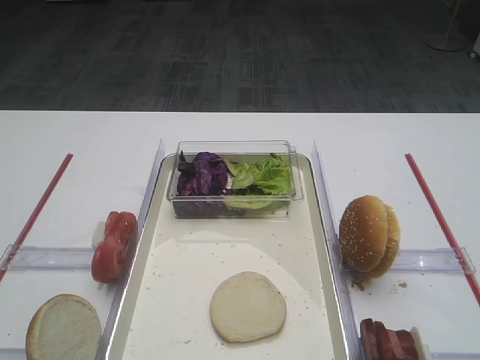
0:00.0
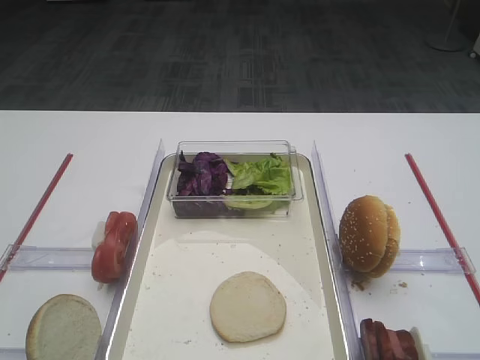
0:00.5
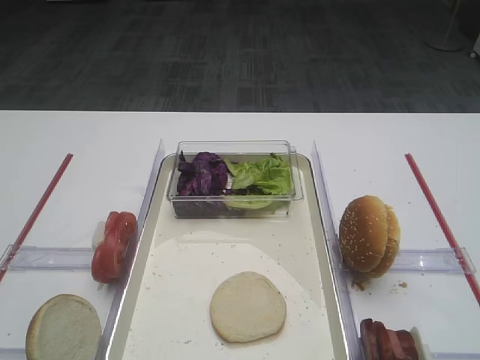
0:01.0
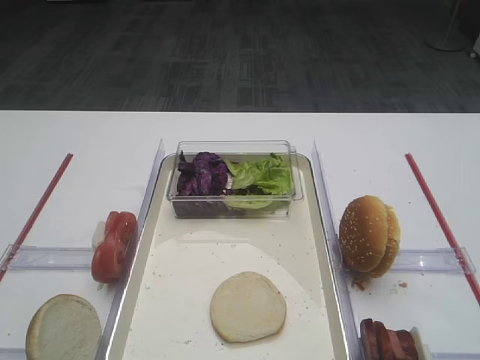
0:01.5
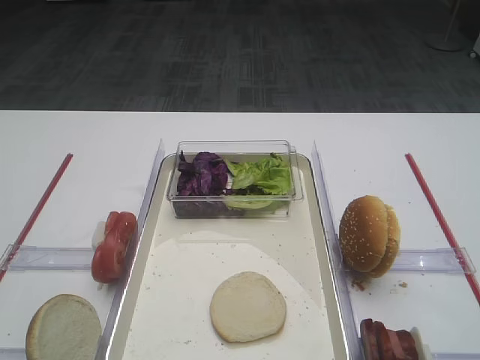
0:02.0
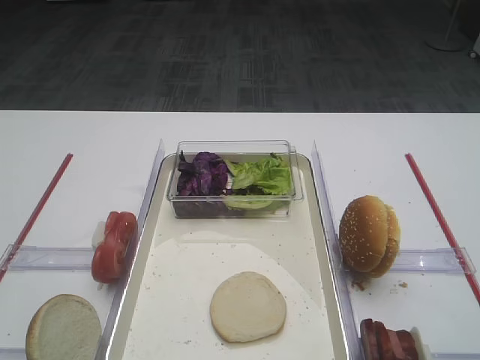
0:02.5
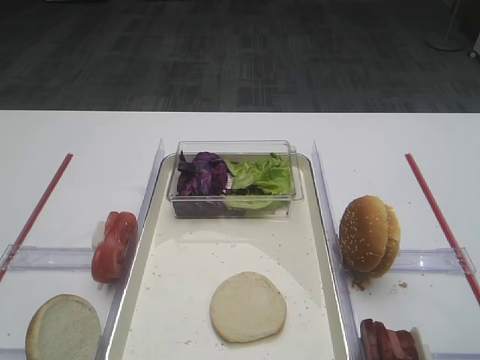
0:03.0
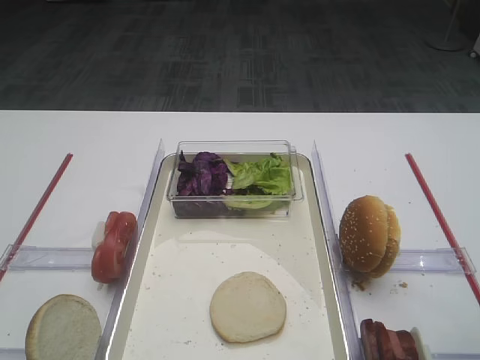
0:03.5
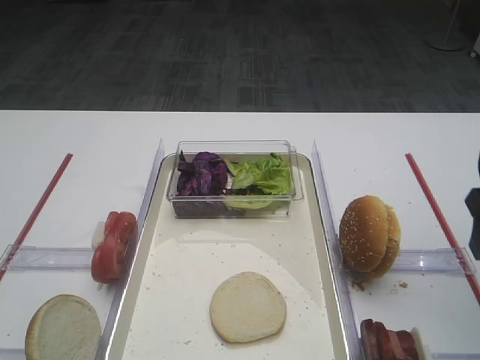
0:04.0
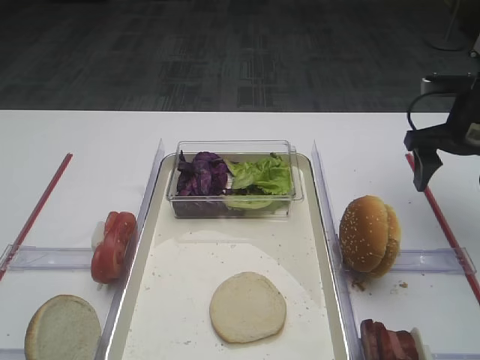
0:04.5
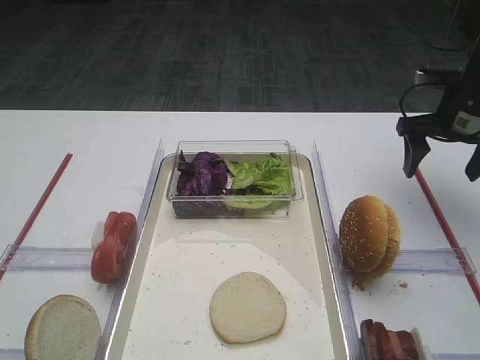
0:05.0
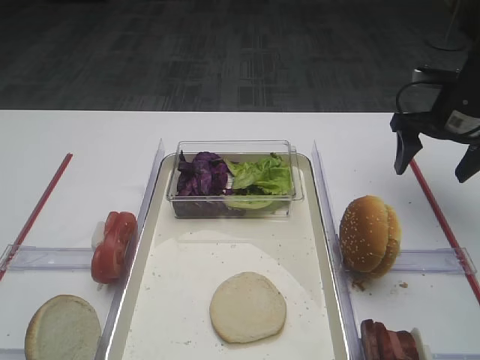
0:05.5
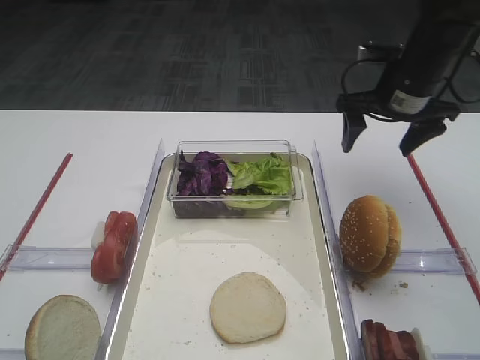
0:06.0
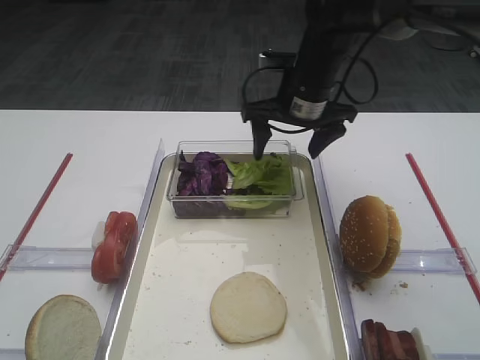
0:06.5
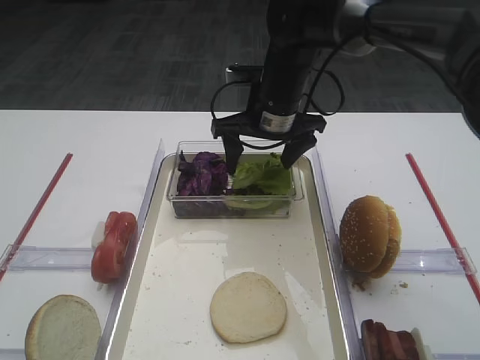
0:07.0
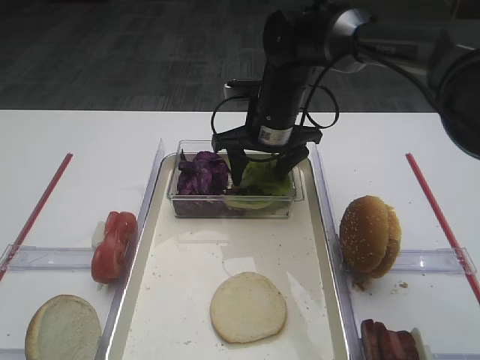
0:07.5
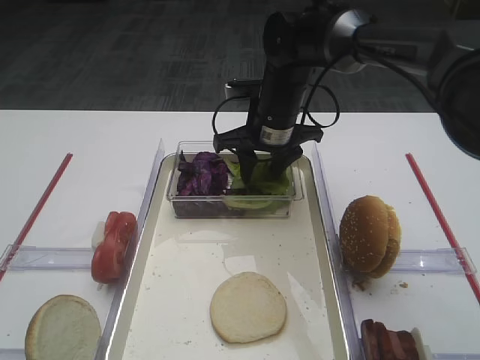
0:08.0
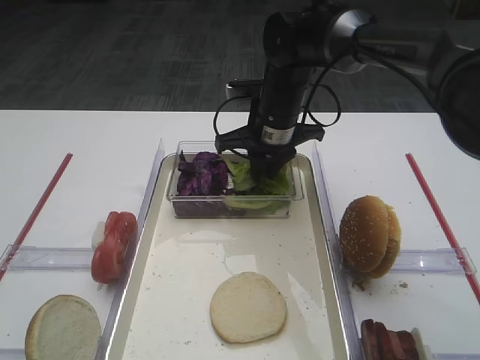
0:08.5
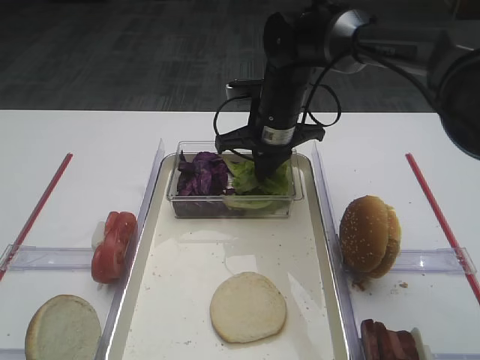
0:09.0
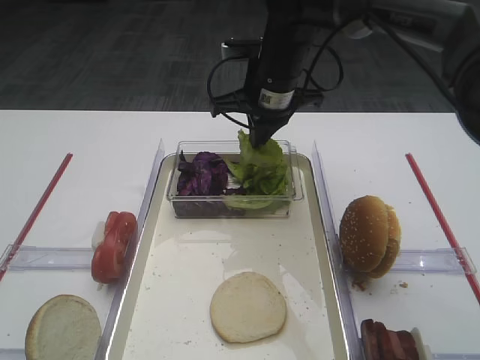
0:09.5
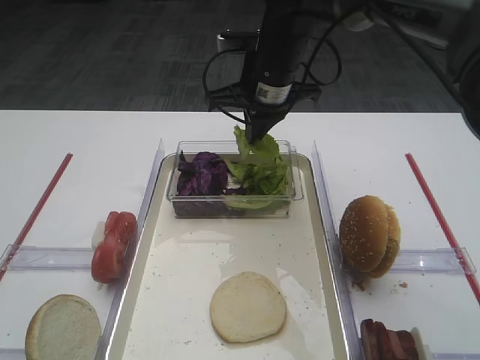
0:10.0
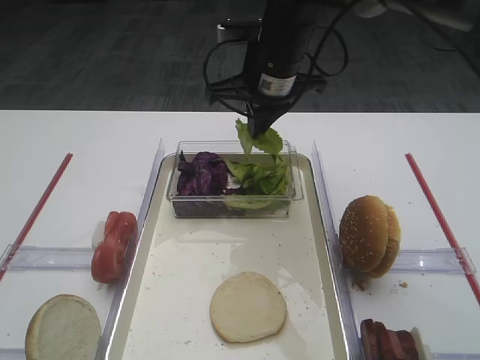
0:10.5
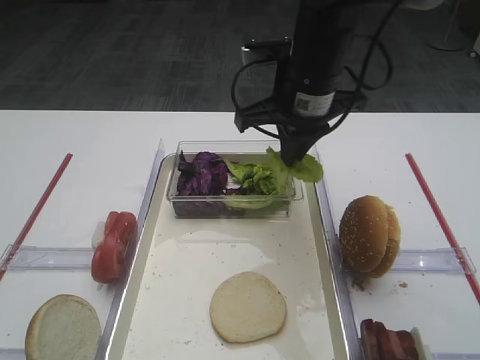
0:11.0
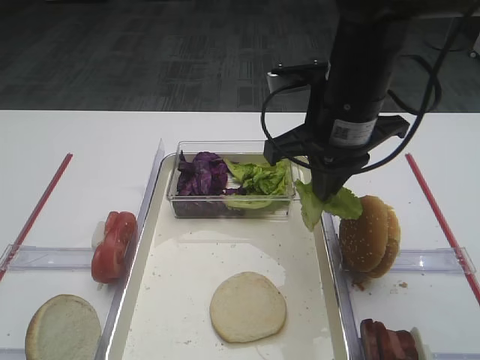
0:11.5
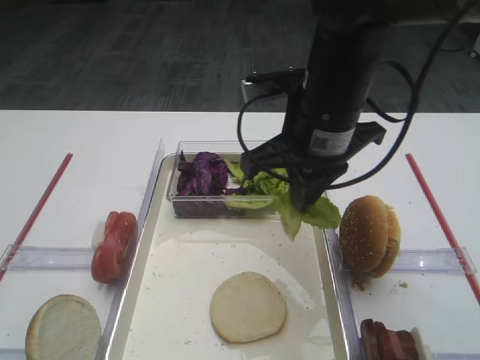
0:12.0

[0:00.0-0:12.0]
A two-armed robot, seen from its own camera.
Step, 0:00.0 to 0:09.5: Pick up the lettuce leaf with the right gripper.
0:02.0 to 0:04.0: The right gripper moves forward, some 20 cm.
0:04.0 to 0:06.0: The right gripper shifts some 20 cm forward.
0:06.0 to 0:08.0: The right gripper shifts some 20 cm to the left, and closes its fingers.
0:08.0 to 0:10.0: The right gripper heads upward, covering about 5 cm, and closes.
0:10.0 to 0:12.0: The right gripper is displaced backward by some 15 cm.

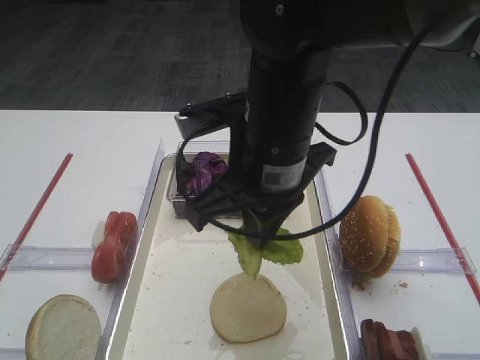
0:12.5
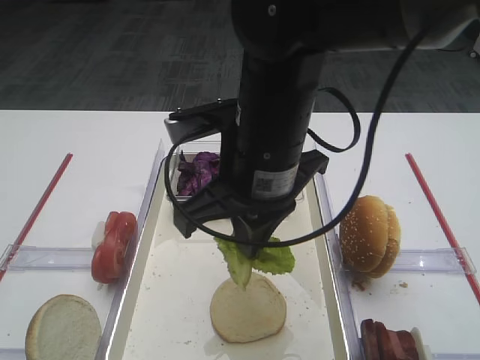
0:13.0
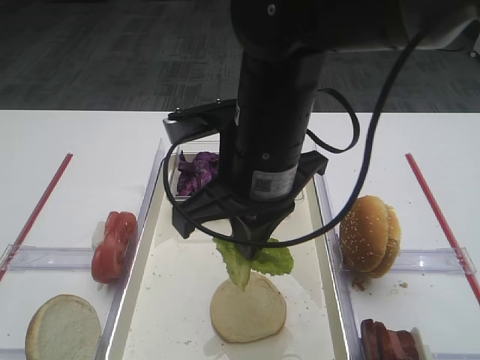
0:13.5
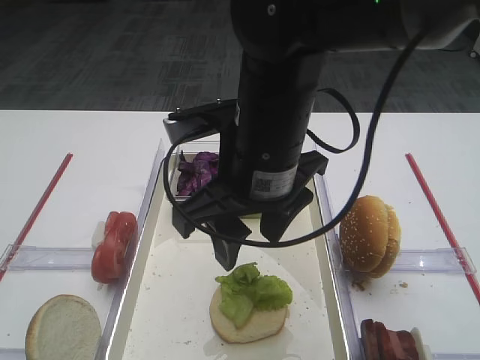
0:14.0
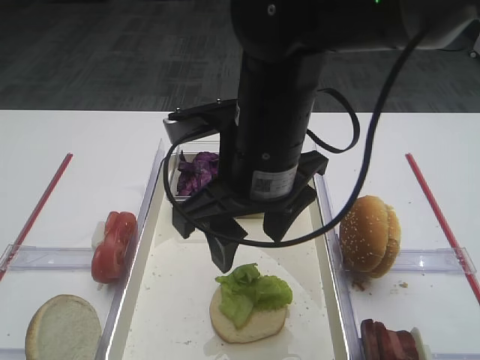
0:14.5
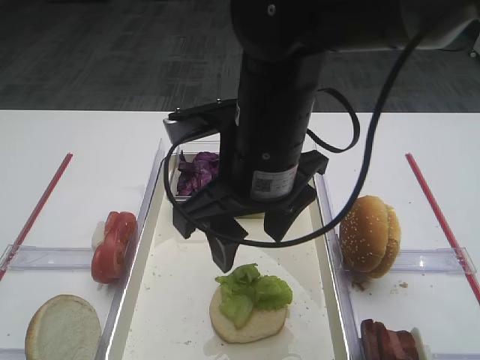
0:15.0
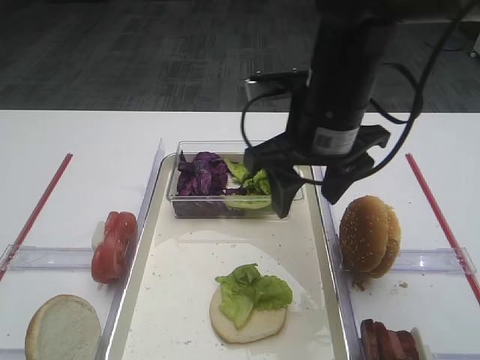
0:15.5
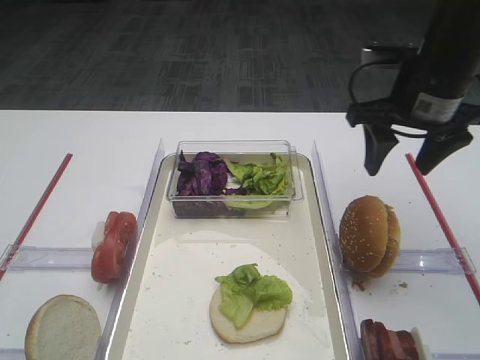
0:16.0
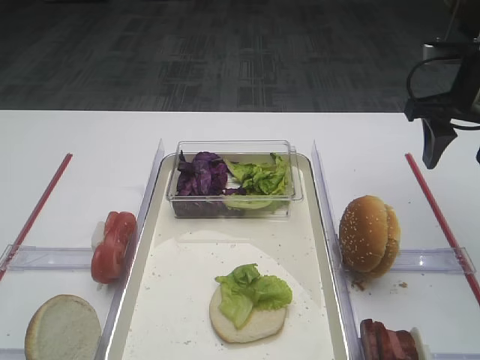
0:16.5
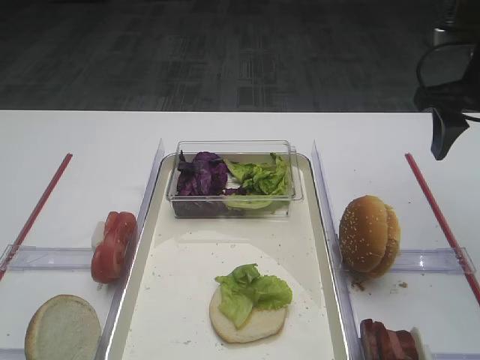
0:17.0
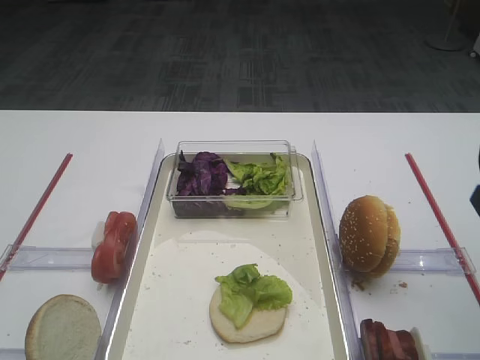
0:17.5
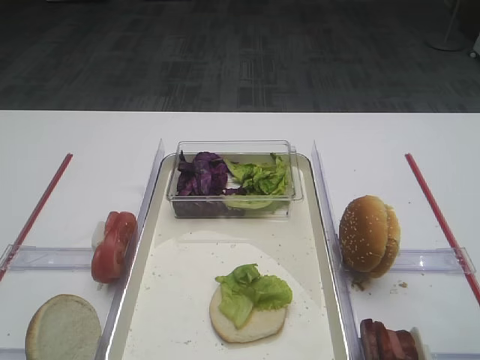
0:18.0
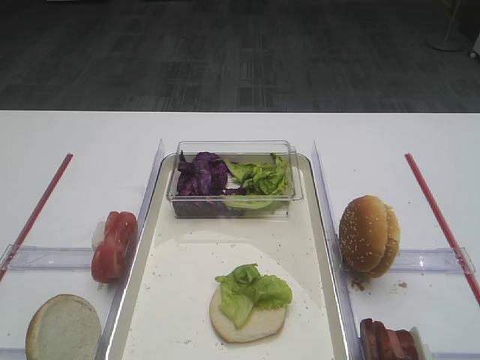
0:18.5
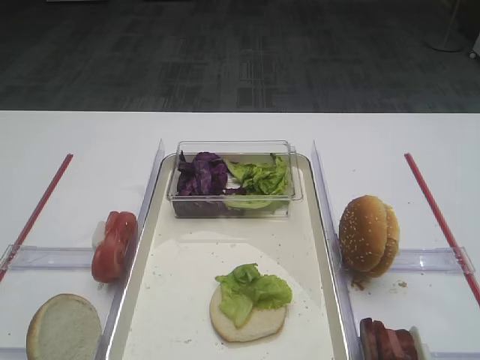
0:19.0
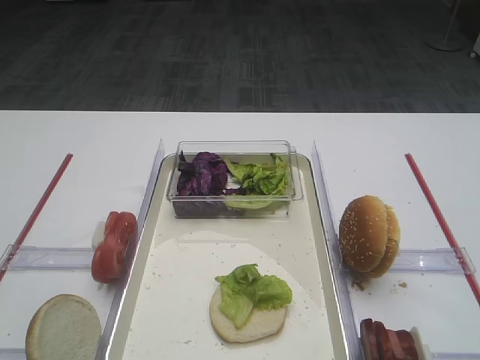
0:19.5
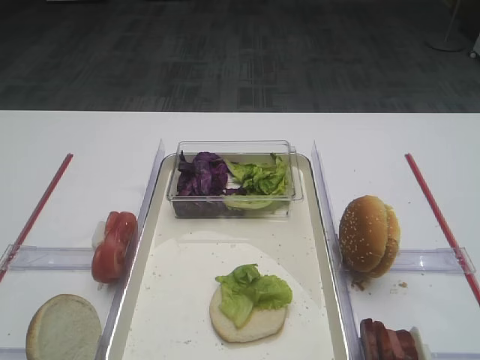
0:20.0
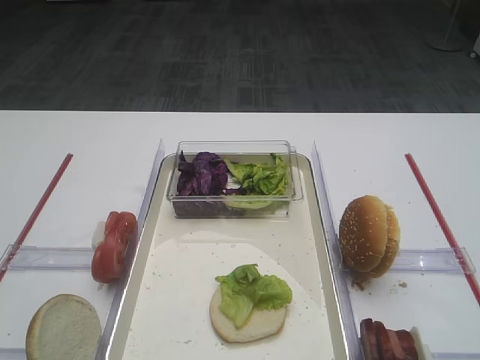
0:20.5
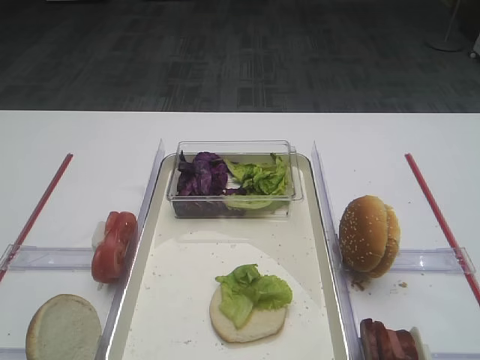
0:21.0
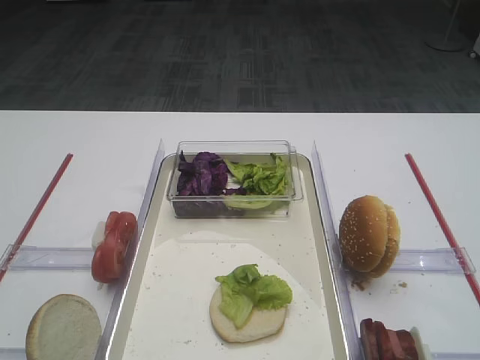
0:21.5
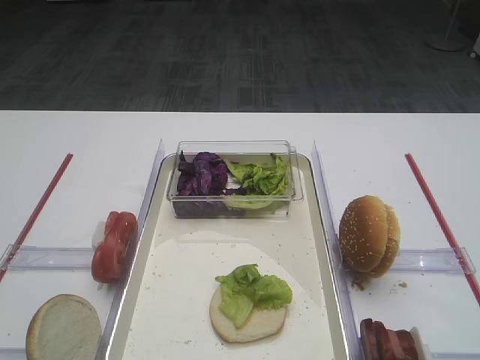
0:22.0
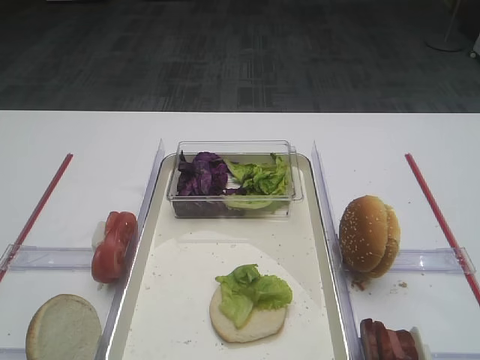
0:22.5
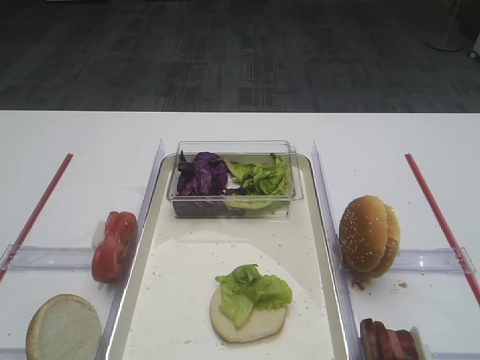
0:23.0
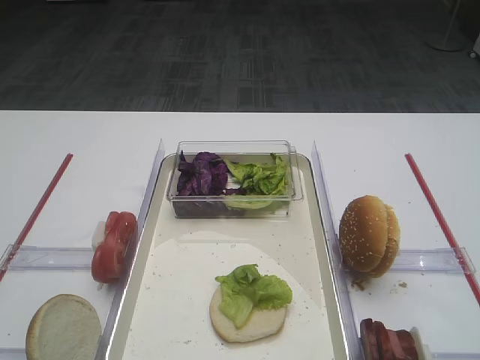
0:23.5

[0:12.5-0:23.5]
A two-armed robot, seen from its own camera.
0:12.5 to 0:14.5: The right gripper opens.
0:14.5 to 0:16.0: The right gripper shifts approximately 20 cm to the right and forward.
0:16.0 to 0:18.0: The right gripper heads backward, covering some 20 cm.
0:20.0 to 0:23.5: The two grippers keep their place.

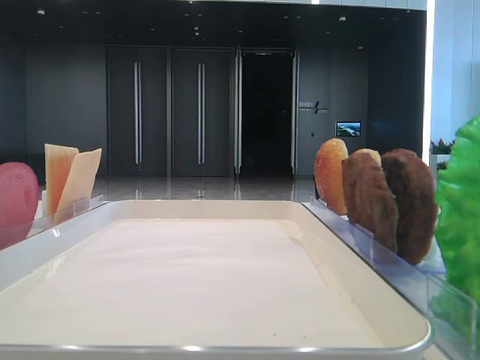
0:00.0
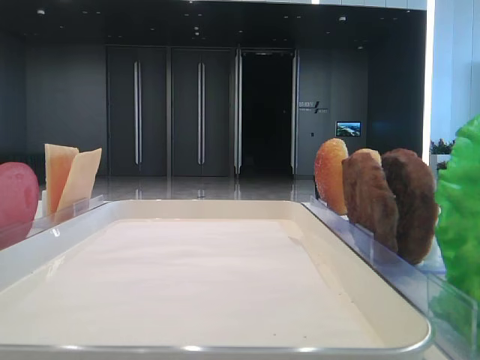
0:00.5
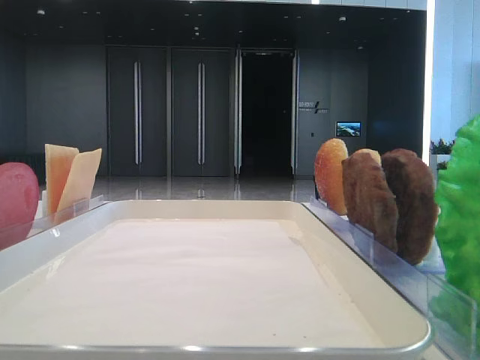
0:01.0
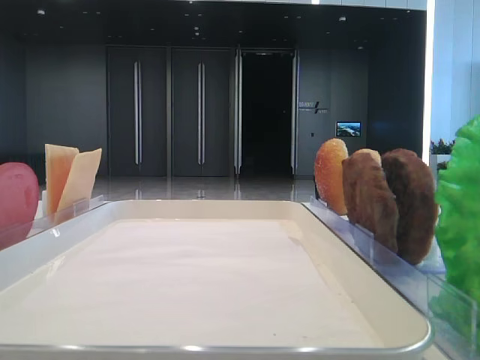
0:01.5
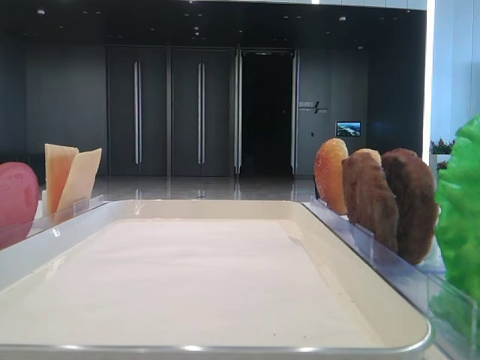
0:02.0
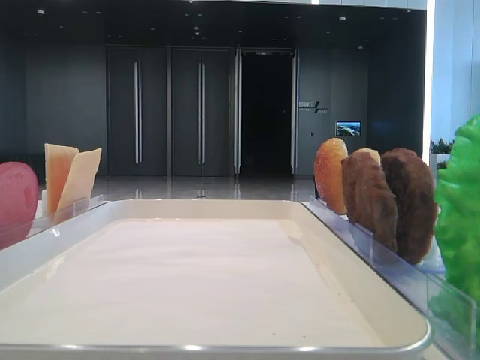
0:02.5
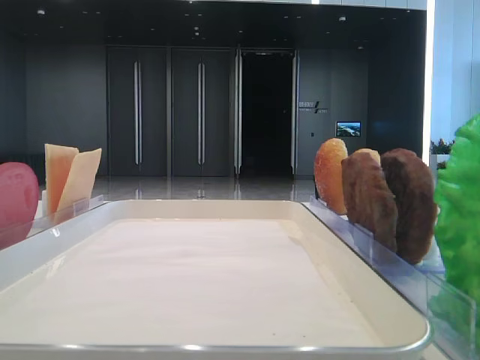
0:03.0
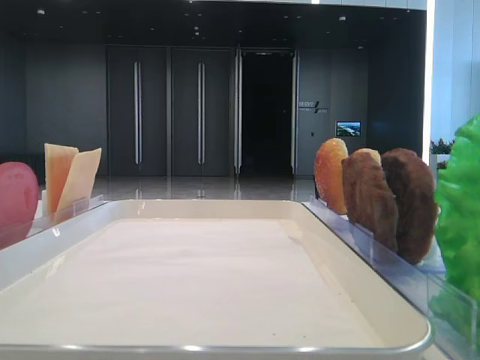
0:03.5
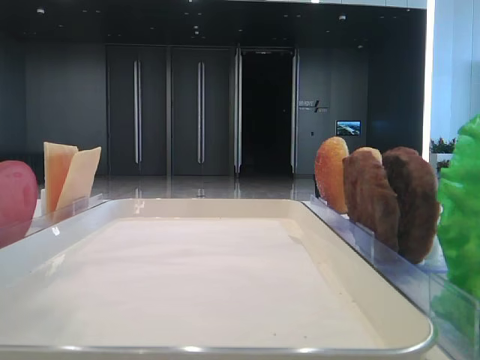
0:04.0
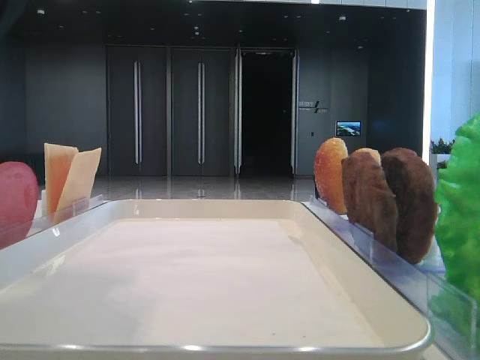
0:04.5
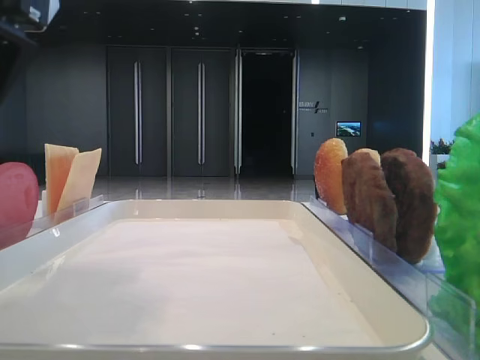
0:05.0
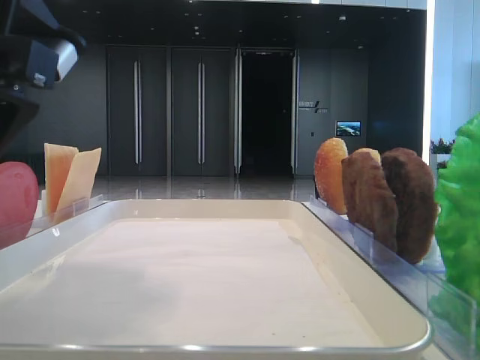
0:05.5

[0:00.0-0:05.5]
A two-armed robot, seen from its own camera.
0:03.5 to 0:05.5: The left gripper goes approximately 20 cm to the right and downward.
